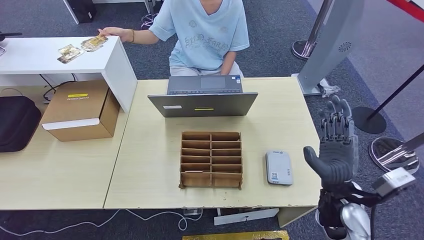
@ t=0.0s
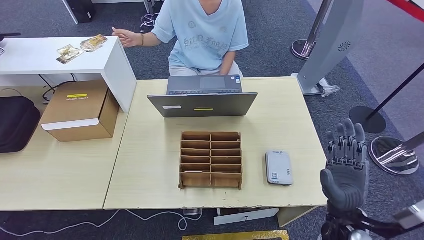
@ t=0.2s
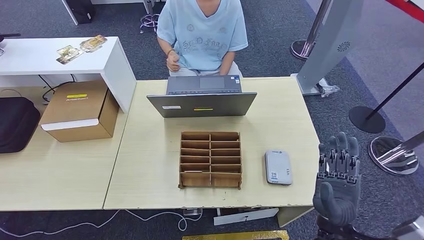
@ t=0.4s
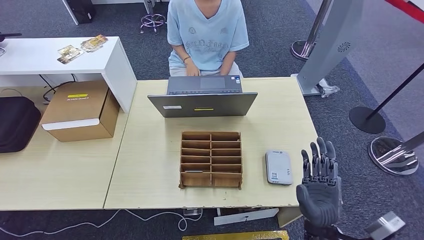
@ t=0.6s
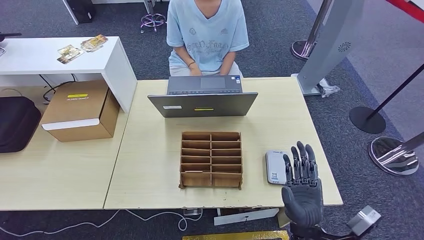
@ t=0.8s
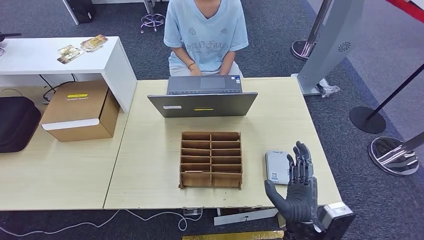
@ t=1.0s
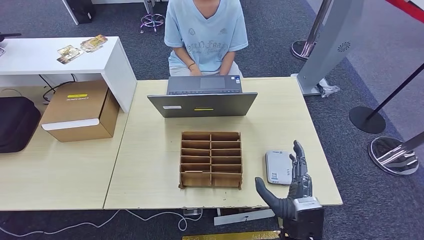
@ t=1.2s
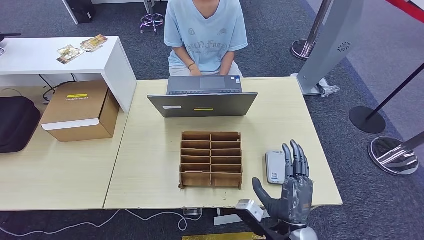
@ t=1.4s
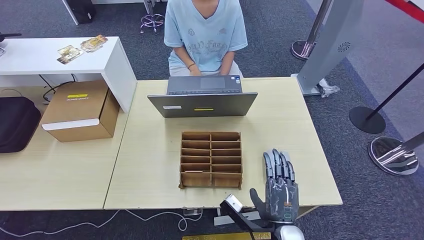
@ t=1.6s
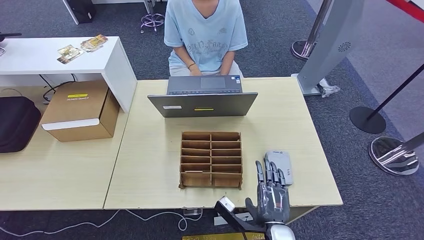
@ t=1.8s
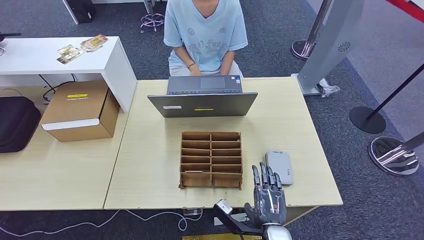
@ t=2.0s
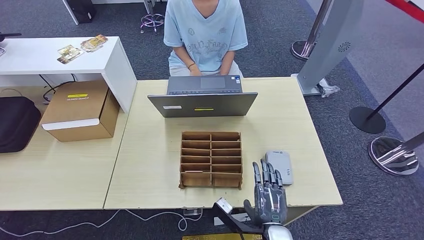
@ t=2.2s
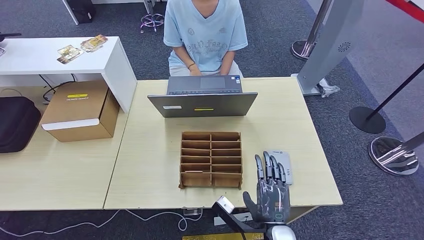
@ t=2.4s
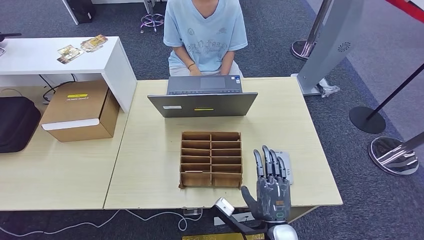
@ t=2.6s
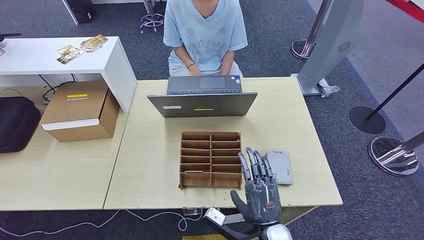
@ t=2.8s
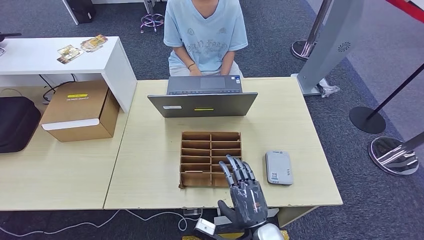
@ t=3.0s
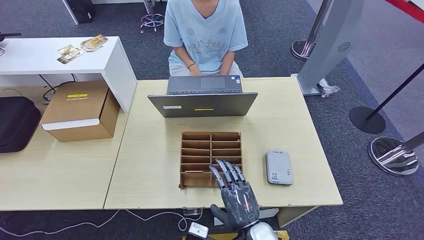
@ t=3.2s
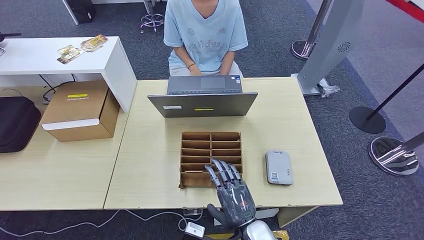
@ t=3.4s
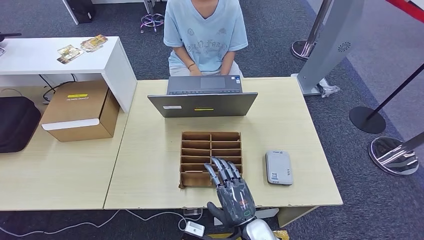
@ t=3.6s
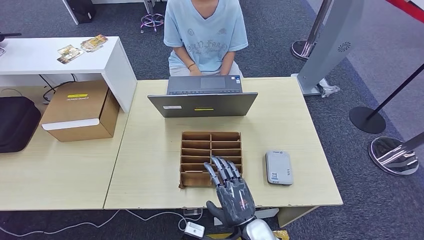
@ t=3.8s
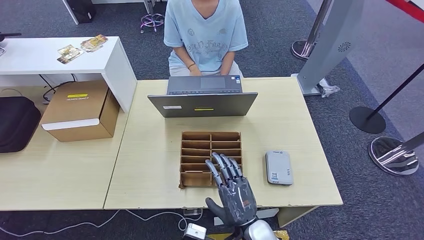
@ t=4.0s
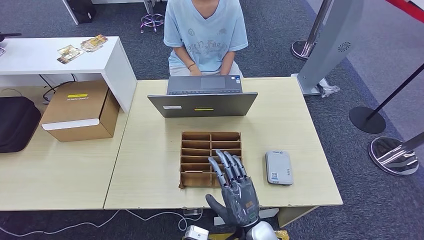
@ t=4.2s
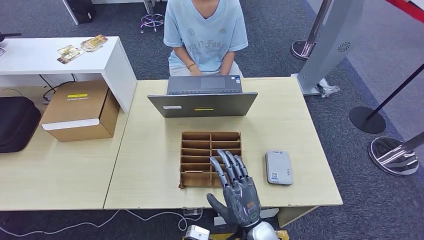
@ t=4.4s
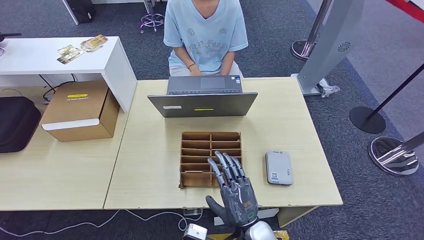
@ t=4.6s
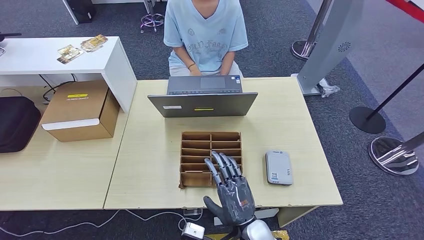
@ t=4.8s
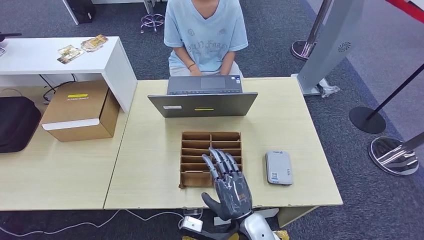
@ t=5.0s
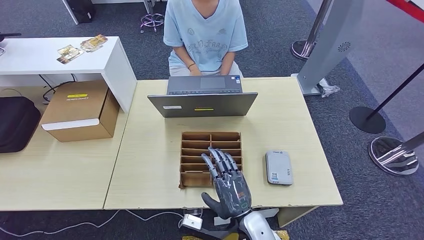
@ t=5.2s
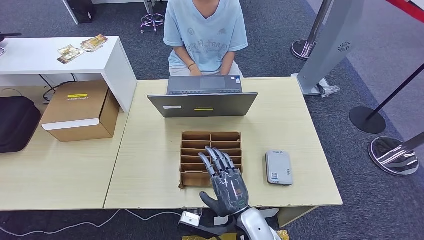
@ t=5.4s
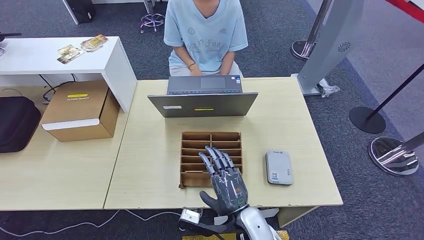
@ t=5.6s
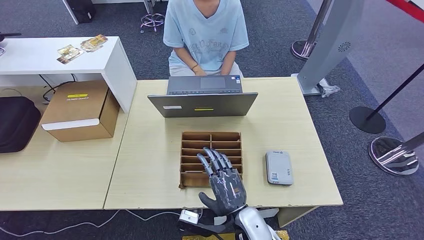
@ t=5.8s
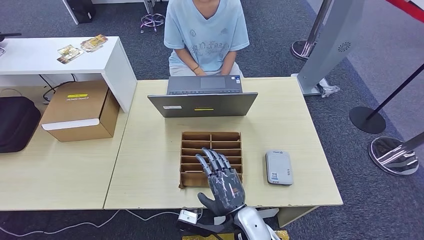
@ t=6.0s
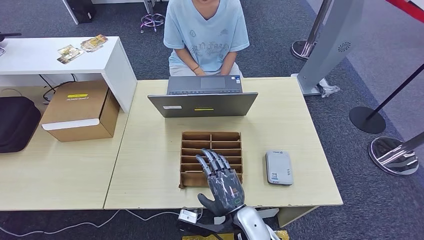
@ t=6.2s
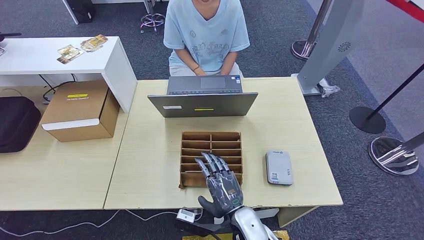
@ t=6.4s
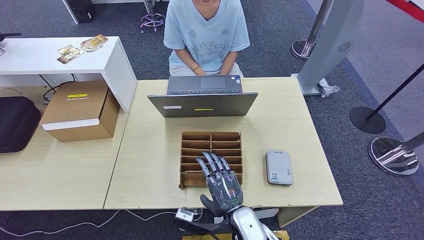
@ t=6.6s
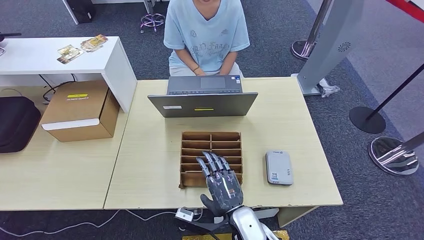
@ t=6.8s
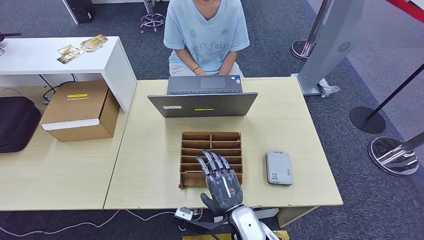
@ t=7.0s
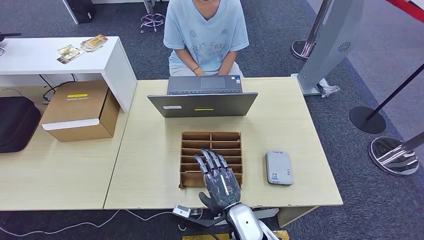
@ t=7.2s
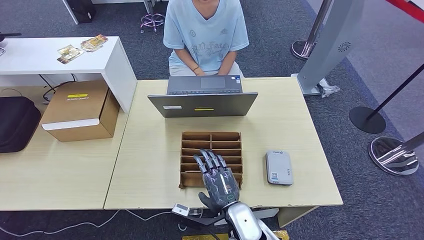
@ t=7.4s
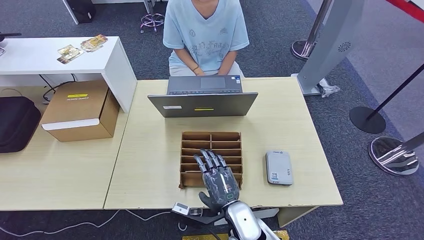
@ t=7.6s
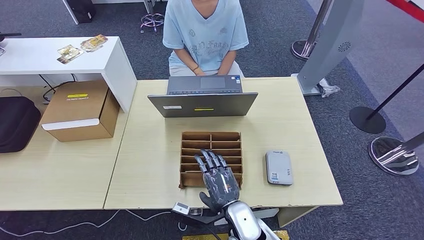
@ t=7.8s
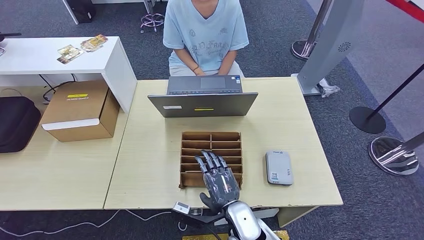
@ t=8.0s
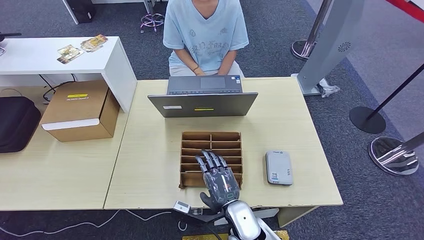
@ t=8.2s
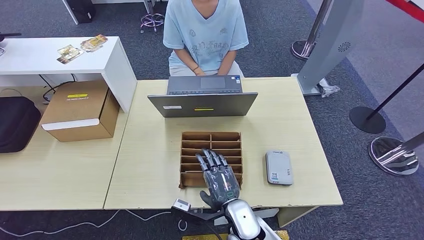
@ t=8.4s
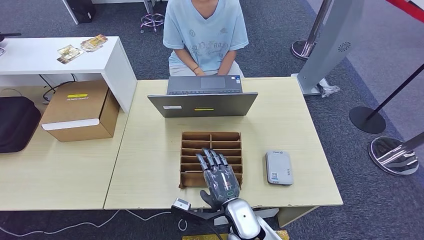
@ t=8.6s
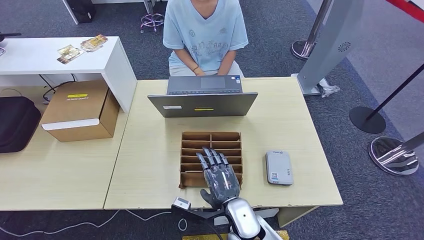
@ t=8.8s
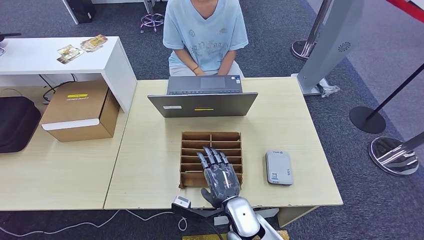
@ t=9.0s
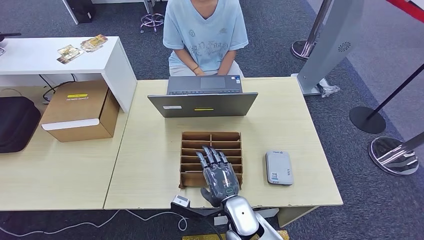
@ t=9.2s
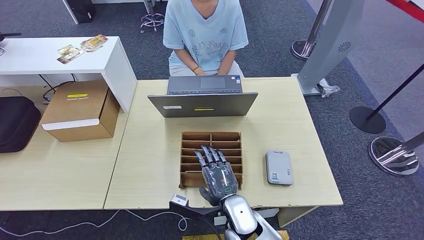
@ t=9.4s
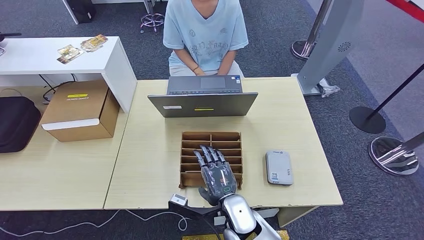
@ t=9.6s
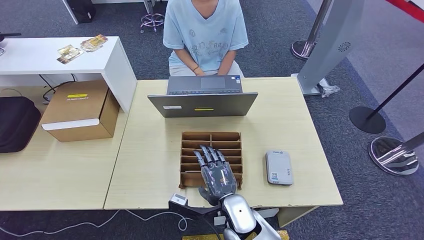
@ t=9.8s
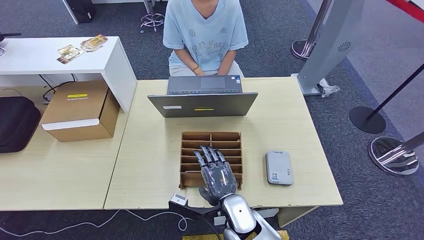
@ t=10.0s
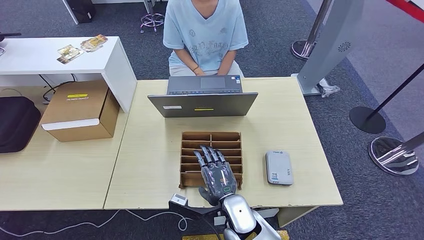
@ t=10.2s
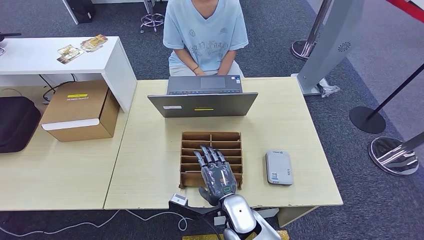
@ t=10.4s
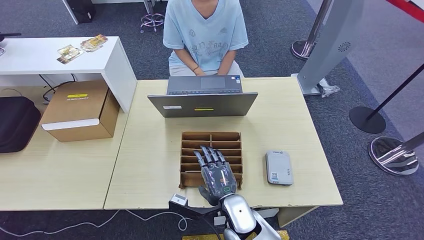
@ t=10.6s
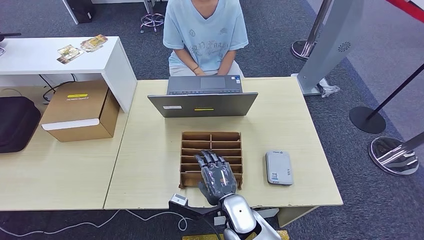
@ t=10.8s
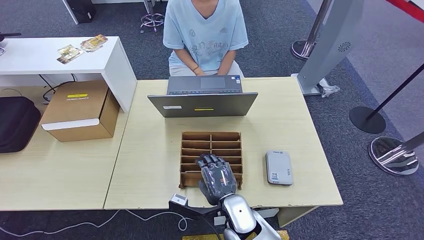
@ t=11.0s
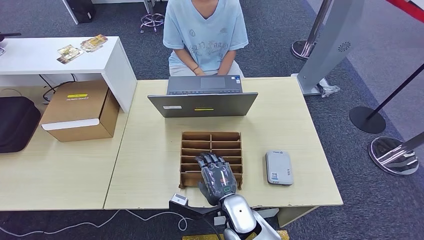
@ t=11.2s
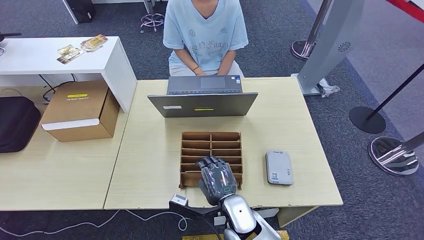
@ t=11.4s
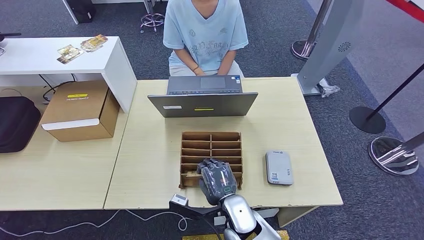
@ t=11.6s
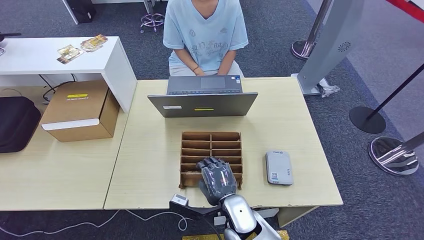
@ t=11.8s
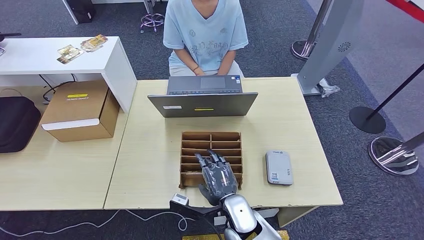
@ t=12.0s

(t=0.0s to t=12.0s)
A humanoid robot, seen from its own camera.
t=0.0s - t=1.6s: The right hand shifts about 15 cm to the left, downward and backward.
t=3.0s - t=6.0s: The hands stay close to where they were, moving slightly.
t=6.0s - t=7.6s: The hands make only small movements.
t=7.6s - t=9.0s: Both hands stay put.
t=9.0s - t=12.0s: Both hands stay about where they are.

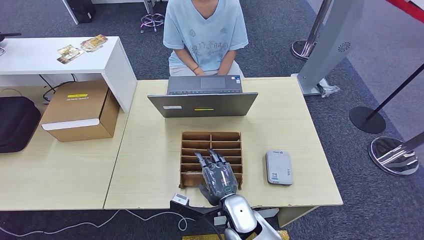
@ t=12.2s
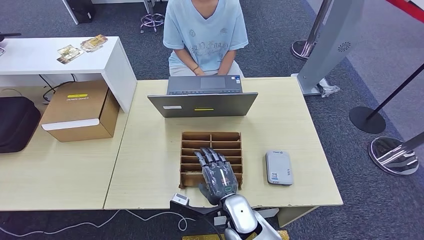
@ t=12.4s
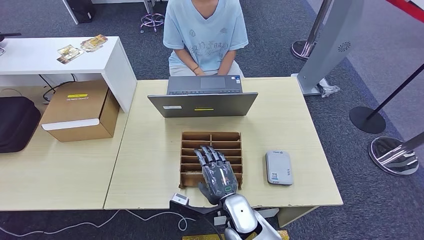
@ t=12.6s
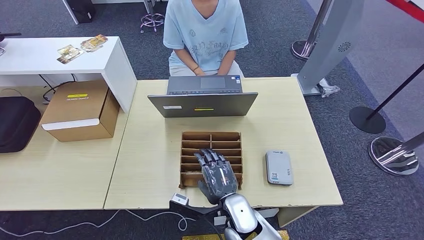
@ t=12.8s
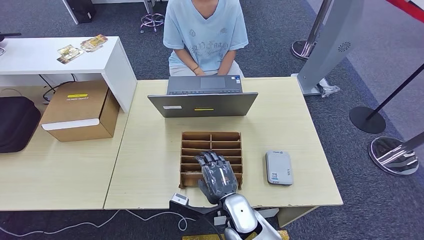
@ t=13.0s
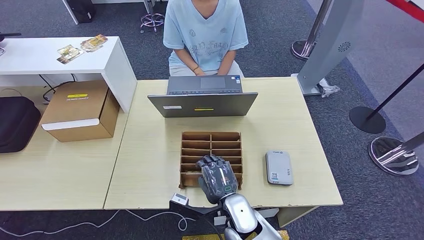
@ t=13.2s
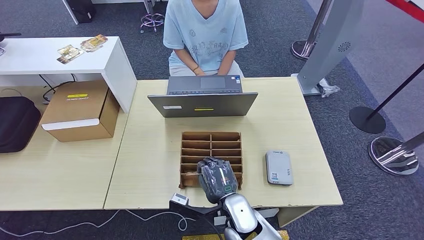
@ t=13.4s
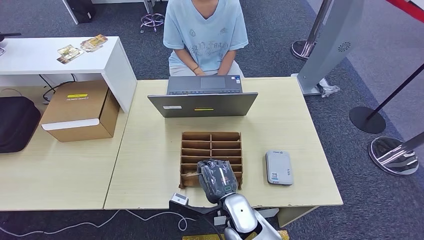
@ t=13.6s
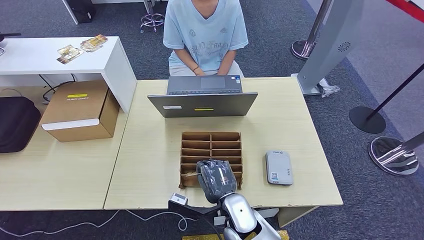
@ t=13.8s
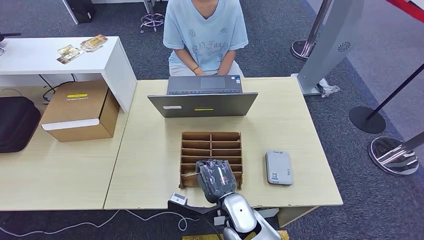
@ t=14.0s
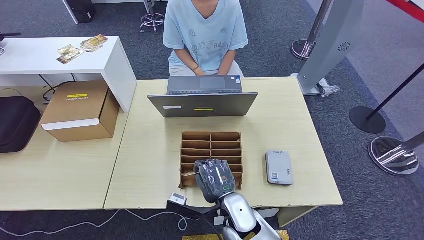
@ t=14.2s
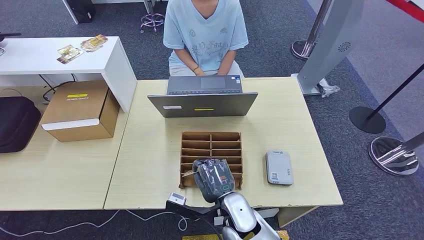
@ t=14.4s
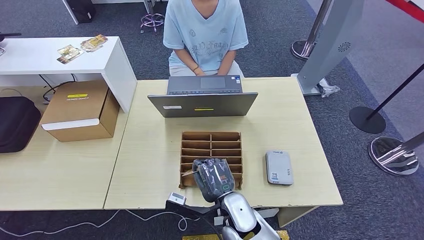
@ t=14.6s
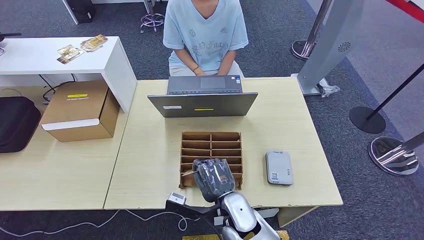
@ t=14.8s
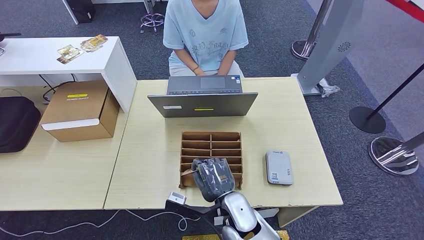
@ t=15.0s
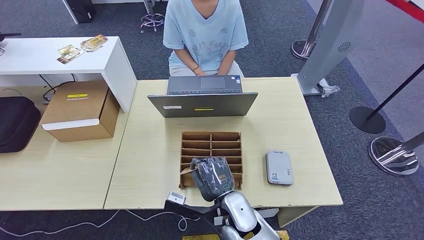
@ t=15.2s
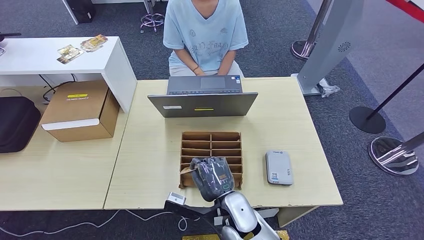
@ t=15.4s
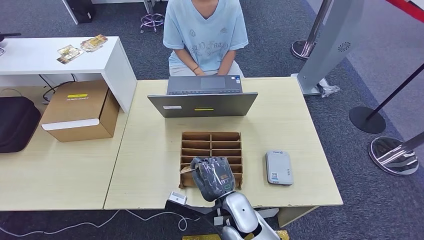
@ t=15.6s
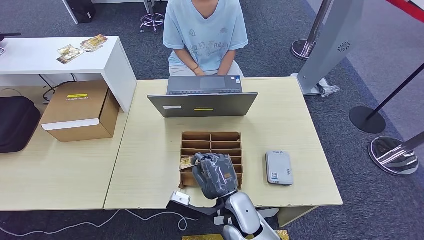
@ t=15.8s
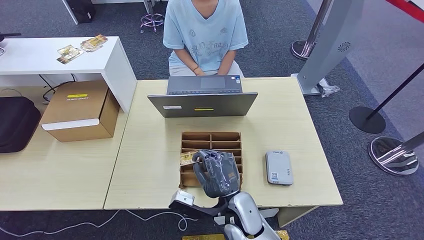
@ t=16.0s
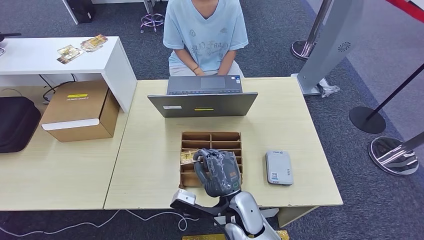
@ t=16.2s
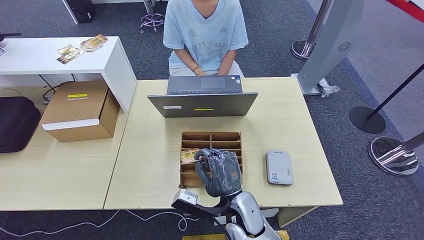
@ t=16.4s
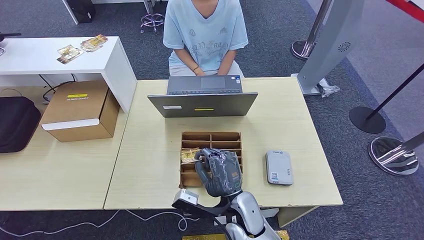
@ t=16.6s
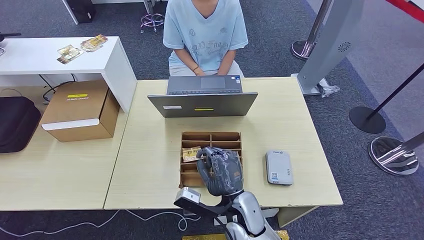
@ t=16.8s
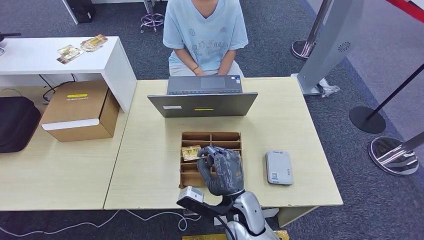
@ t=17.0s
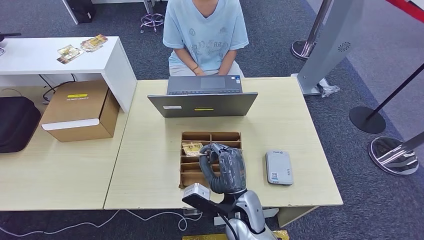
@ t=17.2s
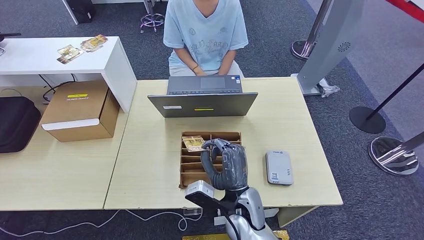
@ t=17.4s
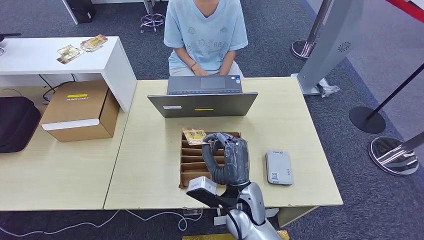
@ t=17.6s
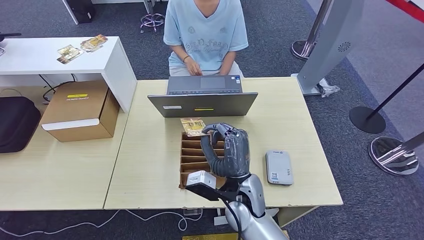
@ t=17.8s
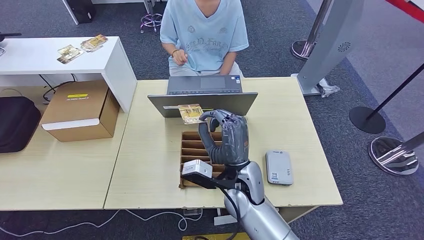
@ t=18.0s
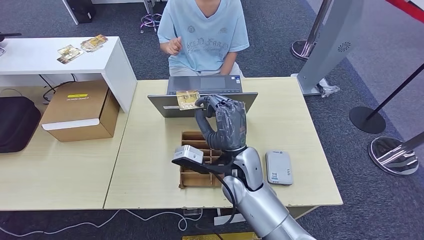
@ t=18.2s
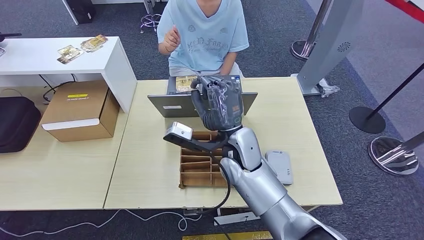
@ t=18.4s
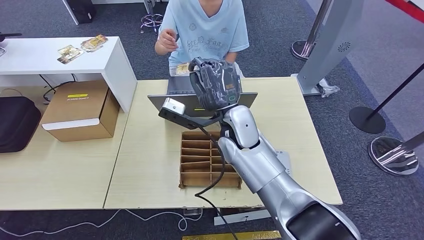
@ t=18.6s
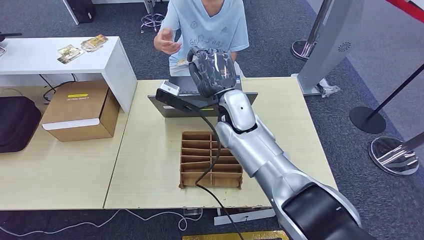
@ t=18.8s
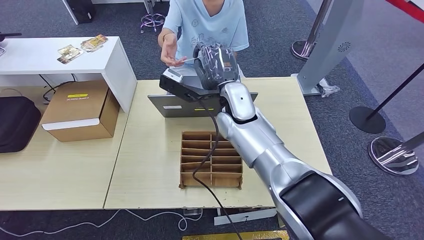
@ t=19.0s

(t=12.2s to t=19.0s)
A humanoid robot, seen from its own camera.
Step, t=12.2s - t=16.0s: Pick up the room key from the key card box.
t=12.2s - t=13.6s: The two hands keep their place.
t=13.6s - t=15.0s: There are only small adjustments of the hands.
t=15.0s - t=16.2s: There are only small adjustments of the hands.
t=17.6s - t=19.0s: The right hand travels forward and upward by approximately 25 cm.
